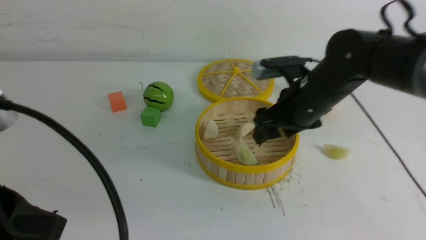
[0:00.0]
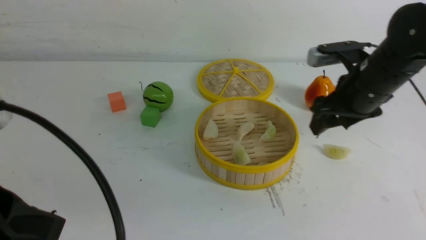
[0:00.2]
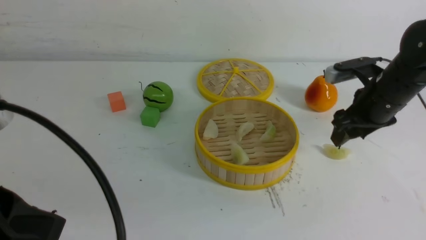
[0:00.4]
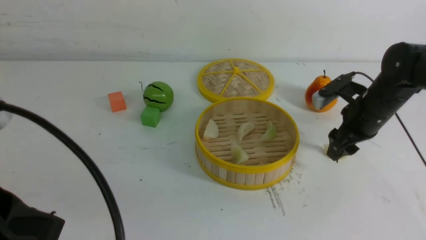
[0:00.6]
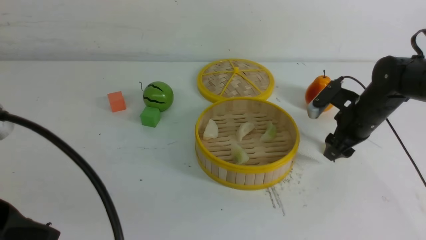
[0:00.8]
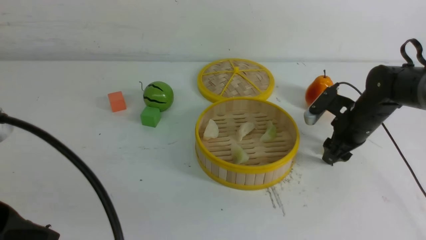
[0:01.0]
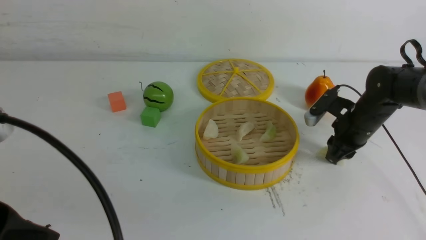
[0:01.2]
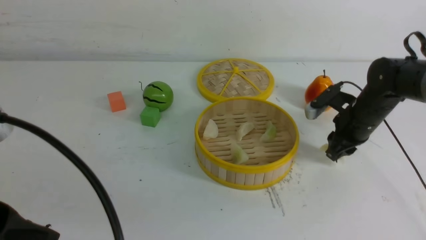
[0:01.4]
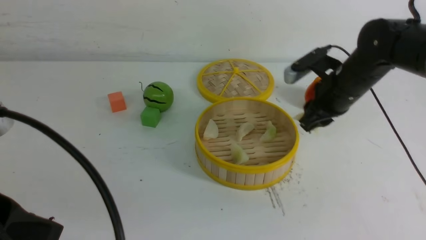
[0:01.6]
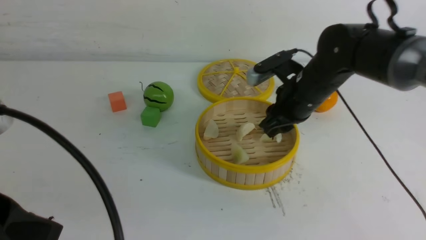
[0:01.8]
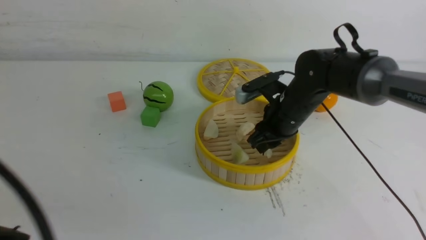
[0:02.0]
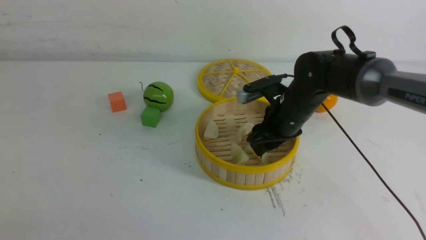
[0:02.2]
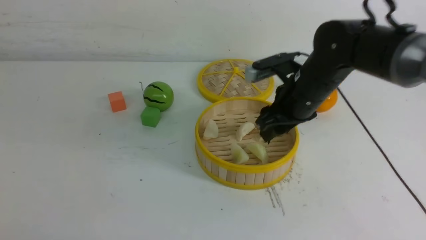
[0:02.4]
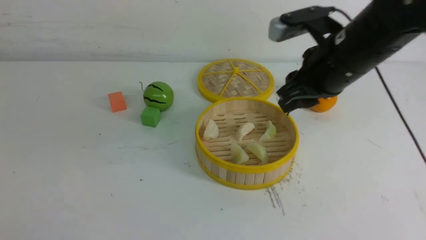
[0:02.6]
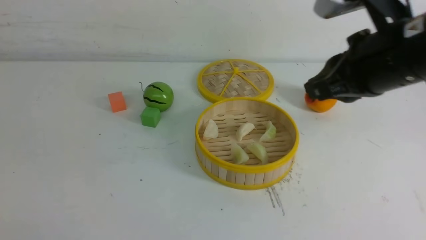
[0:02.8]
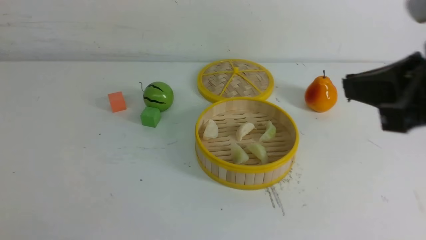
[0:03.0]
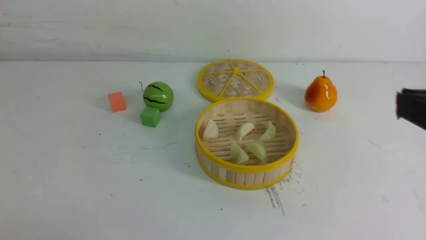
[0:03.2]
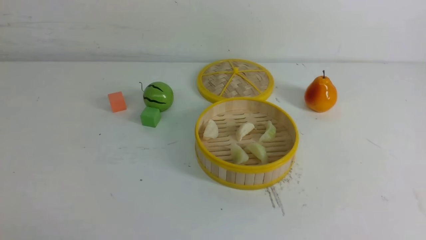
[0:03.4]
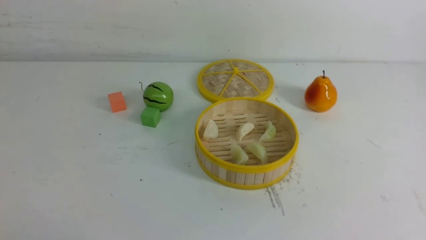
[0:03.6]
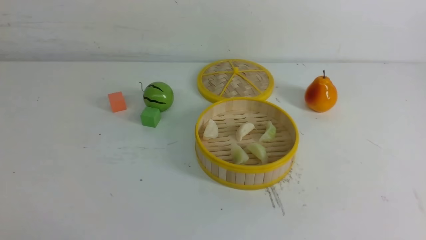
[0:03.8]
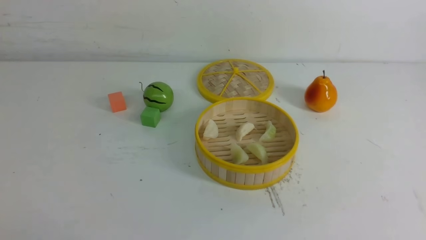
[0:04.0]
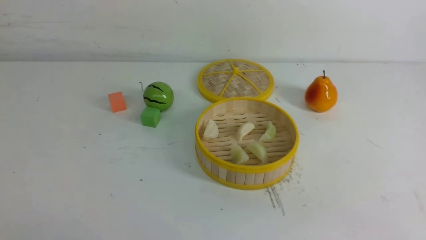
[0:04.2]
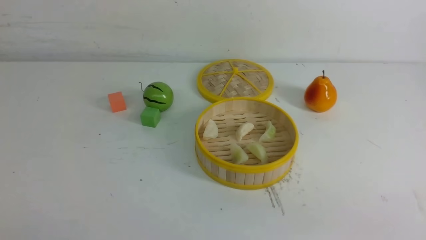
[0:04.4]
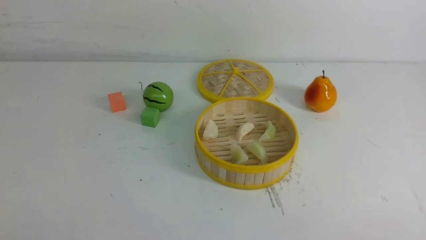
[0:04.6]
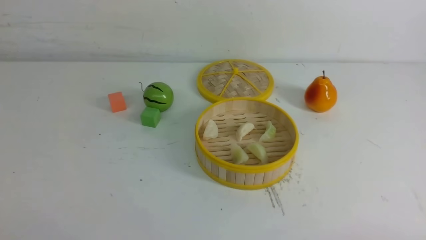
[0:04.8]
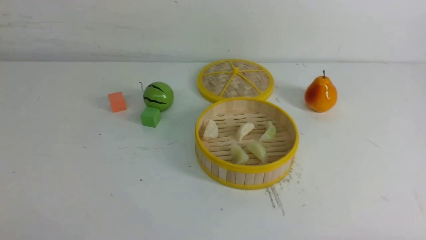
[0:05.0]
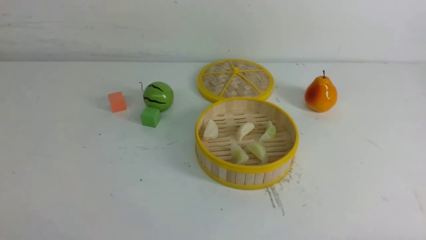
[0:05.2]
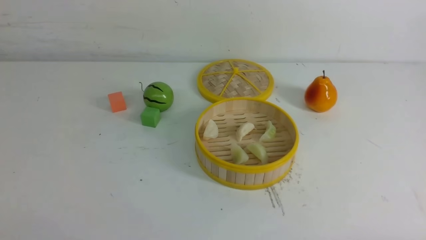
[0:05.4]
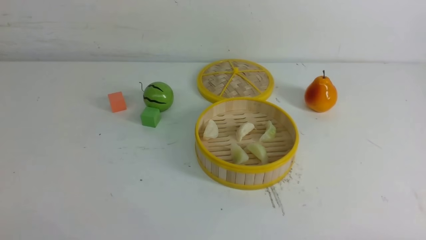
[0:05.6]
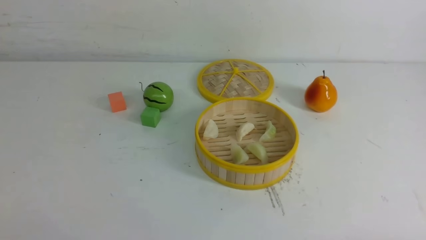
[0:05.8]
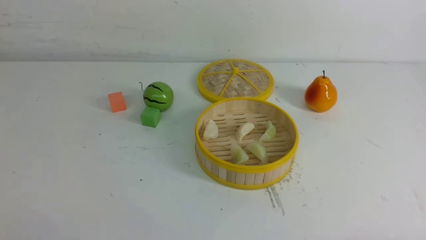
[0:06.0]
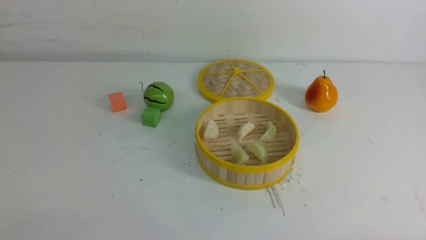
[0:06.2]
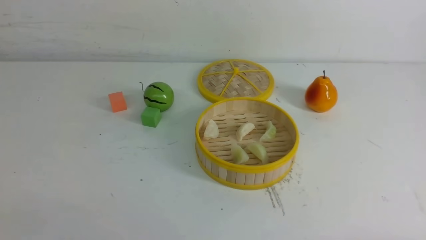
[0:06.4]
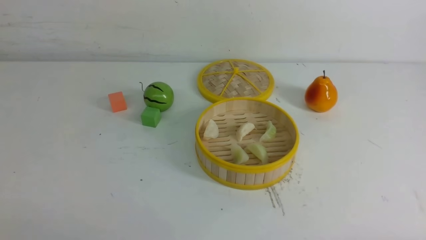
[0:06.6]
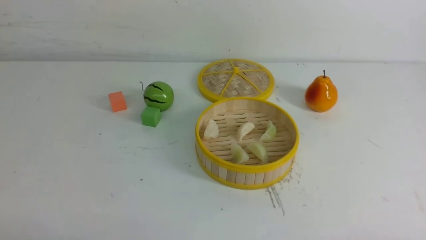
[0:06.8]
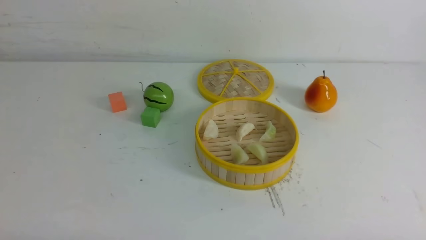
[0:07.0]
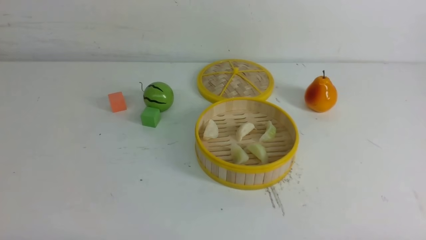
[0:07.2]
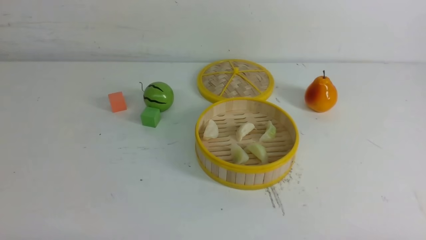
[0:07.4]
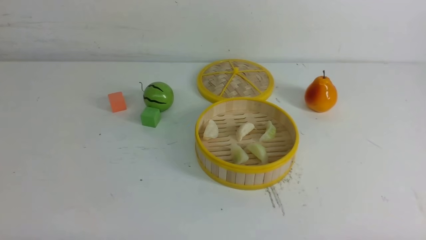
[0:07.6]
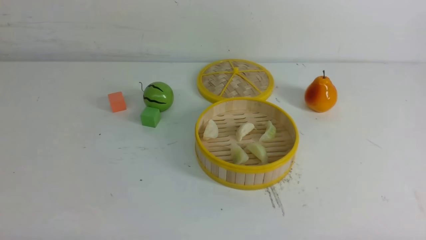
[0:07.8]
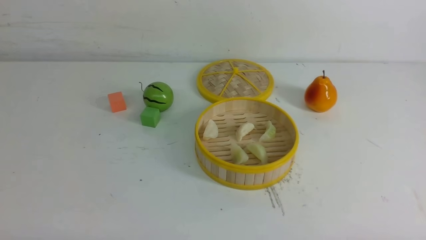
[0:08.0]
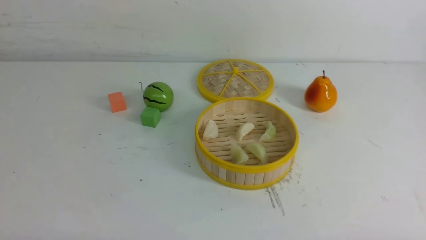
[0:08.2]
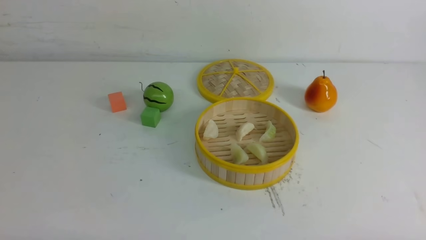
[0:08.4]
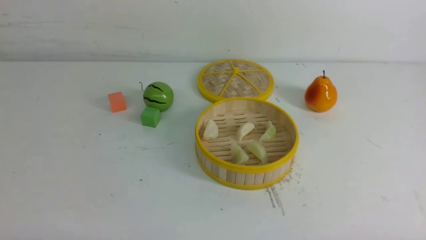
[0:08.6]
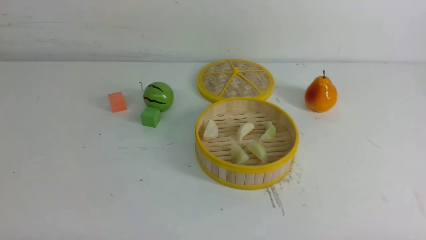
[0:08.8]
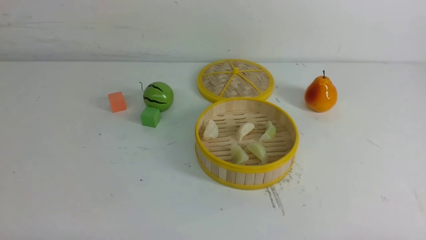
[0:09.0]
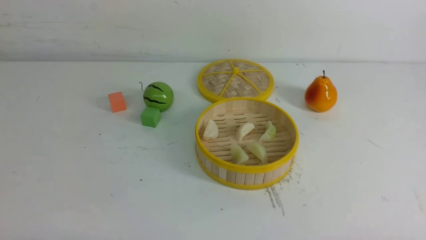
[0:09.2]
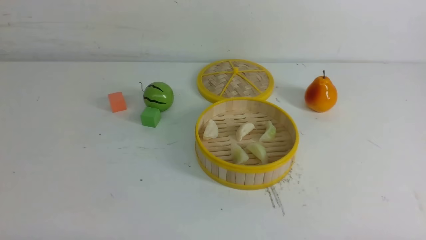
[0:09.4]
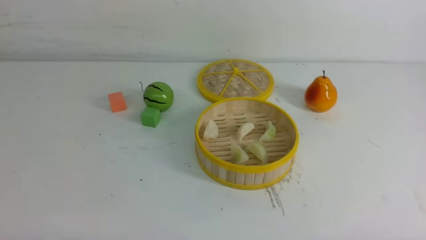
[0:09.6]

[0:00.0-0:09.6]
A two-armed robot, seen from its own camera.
Task of the whole recording: put the dumplings into the steamer on the white table.
Step, 0:00.0 to 0:01.4: use the right arm to grab a dumpling.
Step, 0:01.6 to 0:02.2: use the right arm to put the dumpling into the steamer.
0:00.0 to 0:01.6: The right gripper shifts about 10 cm to the right, and closes.
0:01.6 to 0:03.2: The left gripper travels backward, downward and to the left by some 15 cm; the right gripper moves backward and upward, approximately 35 cm, and closes.
0:03.2 to 0:04.8: The right gripper shifts roughly 20 cm downward and backward.
0:08.0 to 0:09.6: The two grippers keep their place.

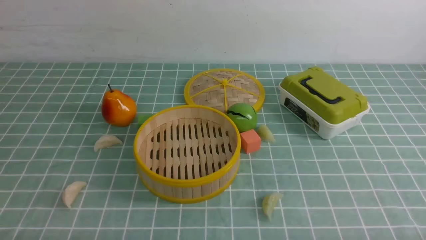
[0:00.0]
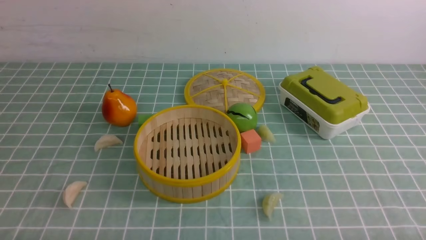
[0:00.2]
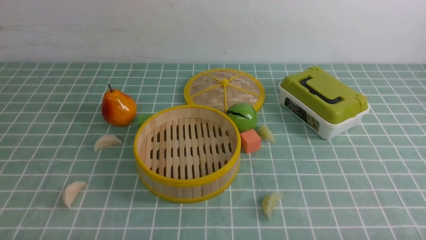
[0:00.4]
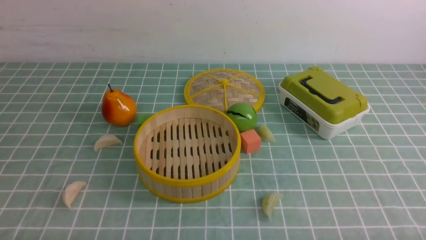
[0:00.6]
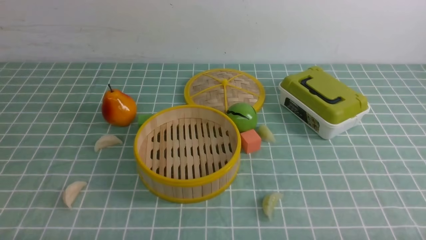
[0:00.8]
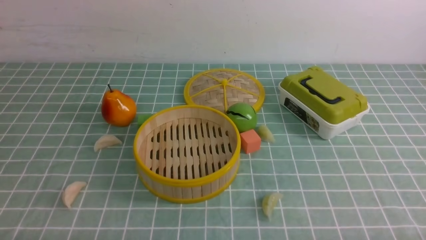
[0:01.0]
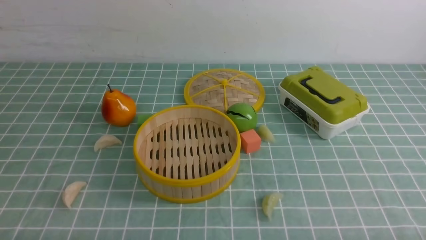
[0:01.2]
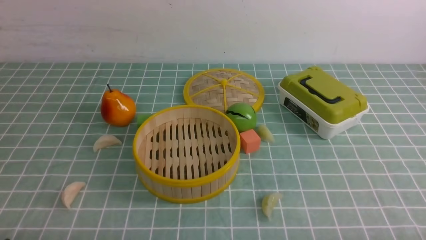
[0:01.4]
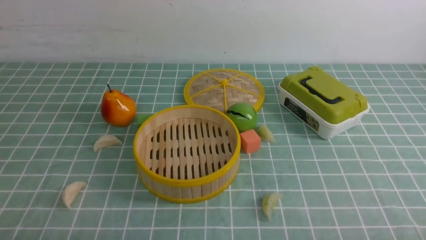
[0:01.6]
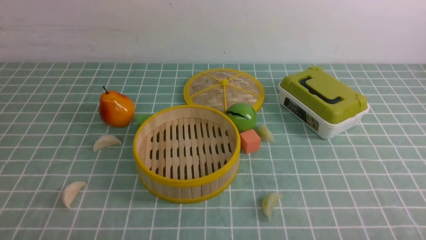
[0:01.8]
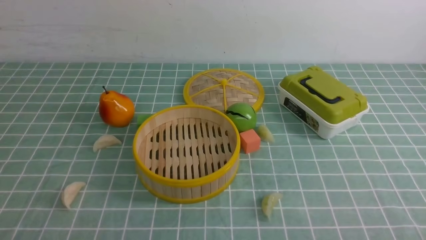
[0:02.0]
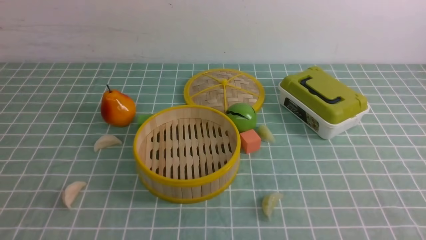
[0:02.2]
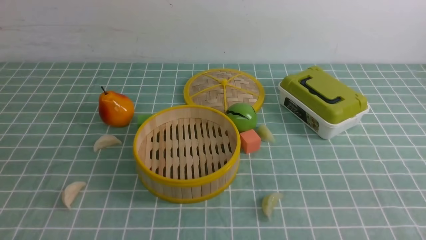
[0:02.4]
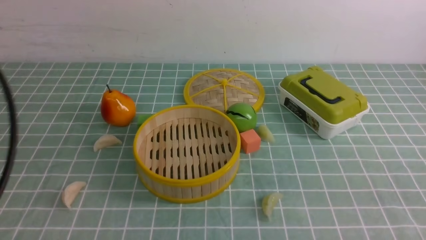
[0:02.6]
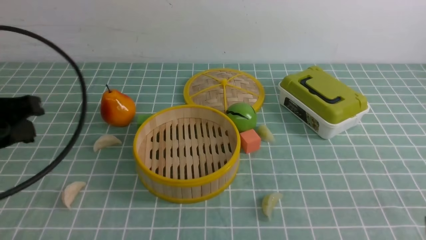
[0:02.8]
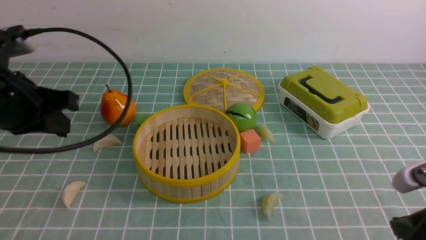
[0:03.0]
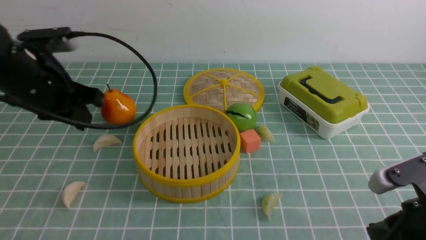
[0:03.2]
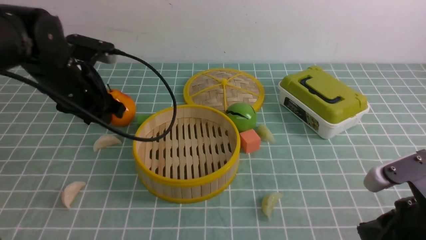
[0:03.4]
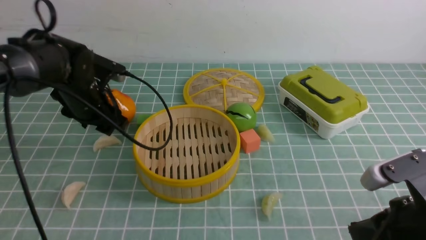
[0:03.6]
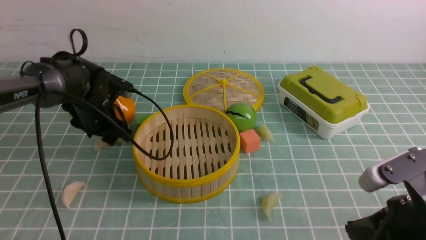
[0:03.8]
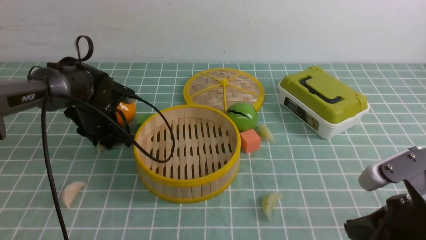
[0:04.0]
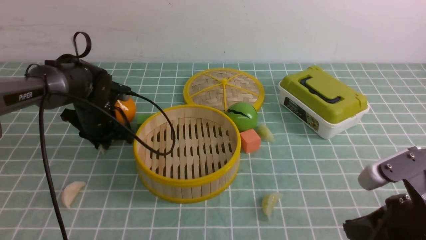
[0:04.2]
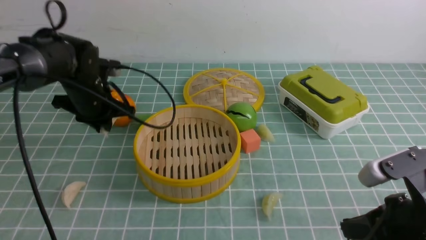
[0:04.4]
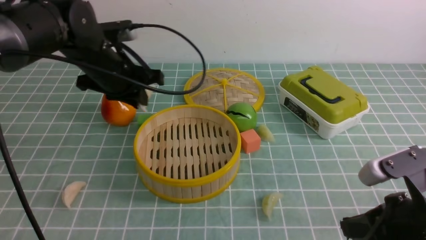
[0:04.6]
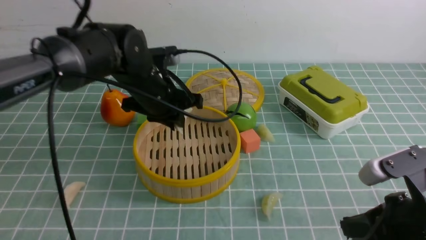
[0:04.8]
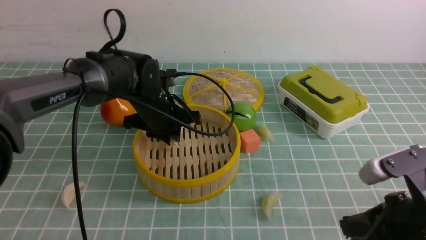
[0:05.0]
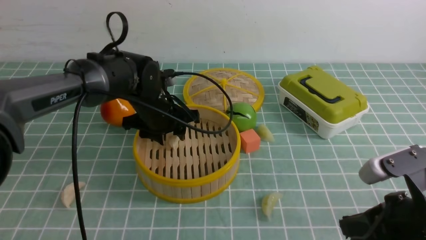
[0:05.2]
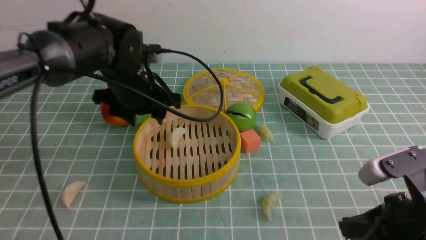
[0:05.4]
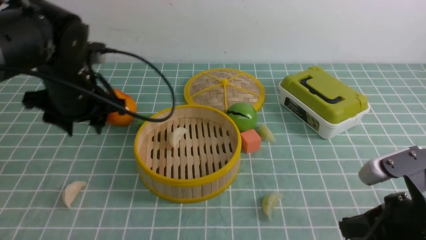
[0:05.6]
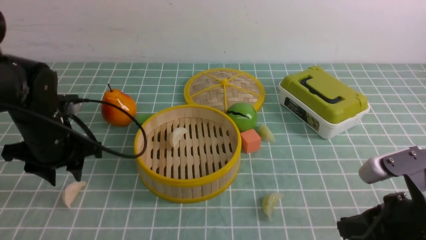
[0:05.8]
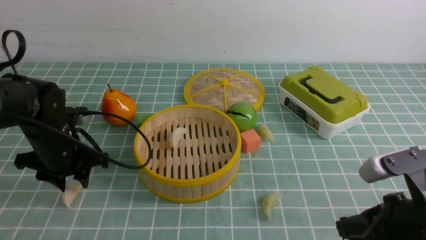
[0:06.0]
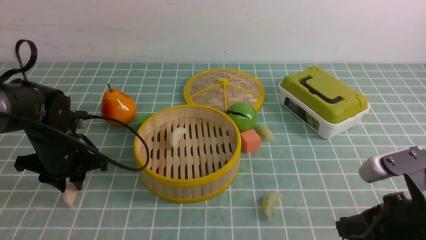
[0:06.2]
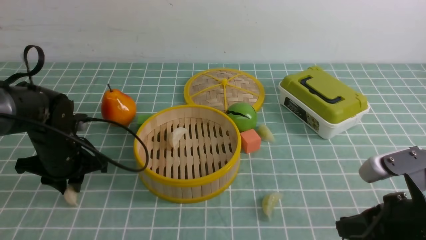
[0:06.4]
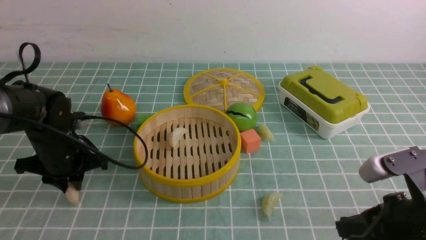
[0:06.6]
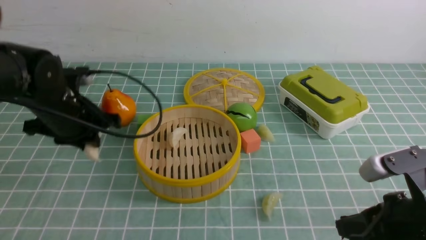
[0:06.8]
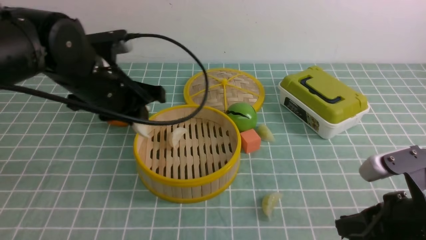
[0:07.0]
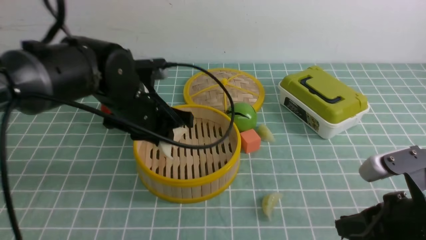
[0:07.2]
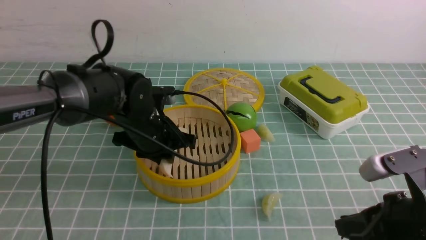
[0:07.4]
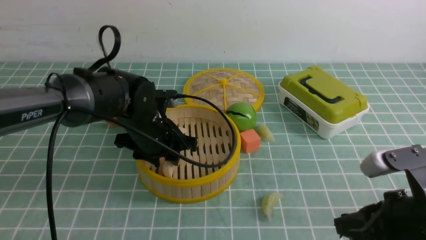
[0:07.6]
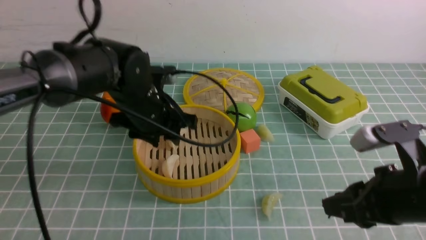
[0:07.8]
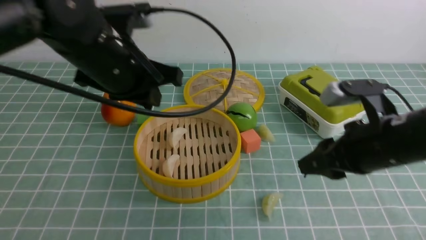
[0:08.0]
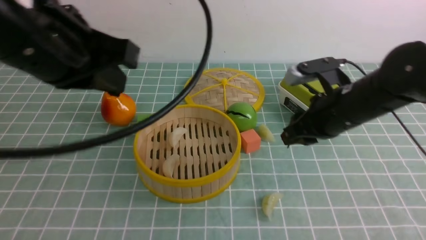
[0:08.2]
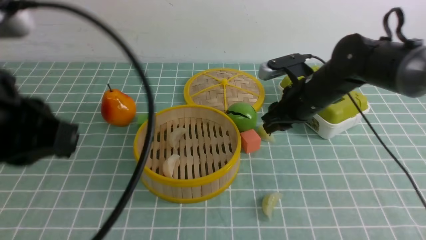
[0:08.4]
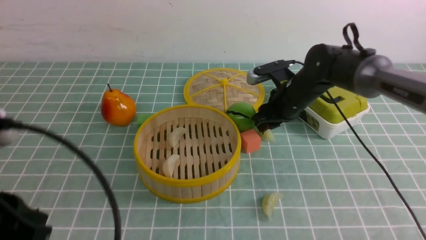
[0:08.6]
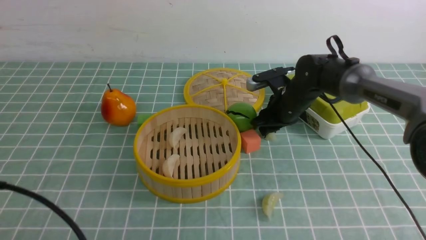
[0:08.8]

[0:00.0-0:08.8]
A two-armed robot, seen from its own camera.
Task of the whole recording: put the dumplings into the steamer on the table with the blue tablecloth.
Step, 0:00.0 to 0:04.4: use the left arm to grab a dumpling.
Step, 0:04.6 to 0:05.6: use the left arm to put the dumpling into the steamer.
Step, 0:05.8 to 0:06.8: use the left arm to grab a dumpling.
Step, 0:07.0 to 0:07.8: use the left arm to put the dumpling into the steamer.
0:01.4 to 0:03.0: The left gripper travels forward and upward by about 25 cm, and closes up. The right gripper travels forward and upward by roughly 10 cm, and closes its fingers.
0:03.0 to 0:04.4: The left gripper heads forward and downward, covering about 20 cm, and opens and closes again.
0:04.4 to 0:05.8: The left gripper shifts about 10 cm backward, travels to the right and back again, about 10 cm each way, and opens its fingers.
0:05.8 to 0:07.4: The left gripper shifts roughly 15 cm to the right.
0:07.4 to 0:08.8: The left gripper moves backward and to the left, approximately 30 cm, and closes its fingers, while the right gripper is displaced forward by approximately 30 cm, and opens its fingers.
